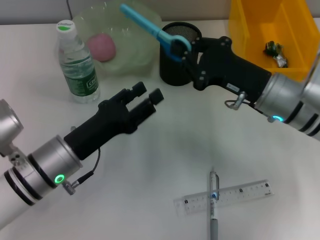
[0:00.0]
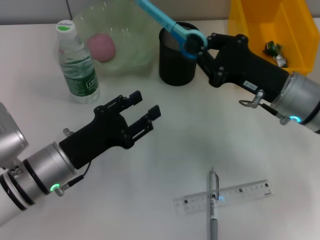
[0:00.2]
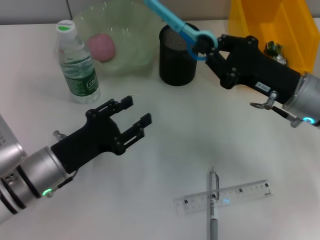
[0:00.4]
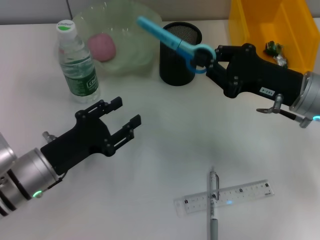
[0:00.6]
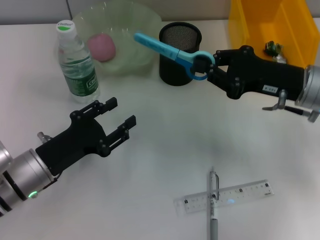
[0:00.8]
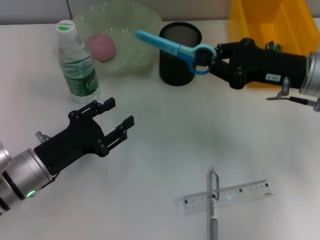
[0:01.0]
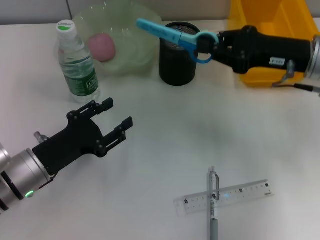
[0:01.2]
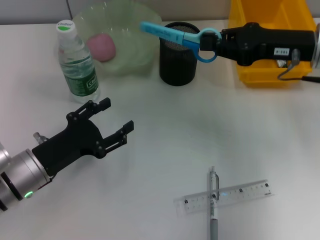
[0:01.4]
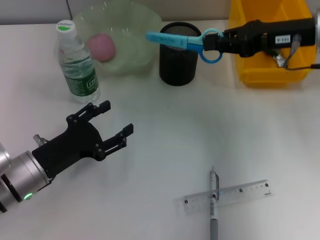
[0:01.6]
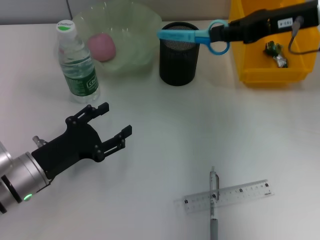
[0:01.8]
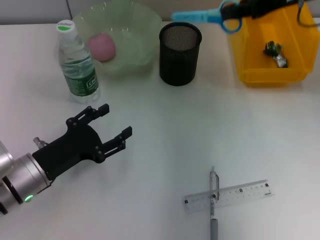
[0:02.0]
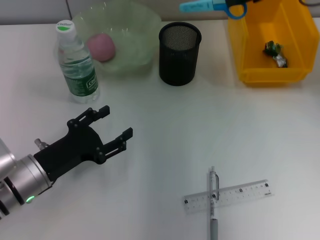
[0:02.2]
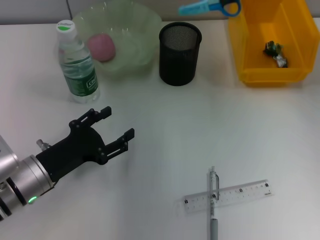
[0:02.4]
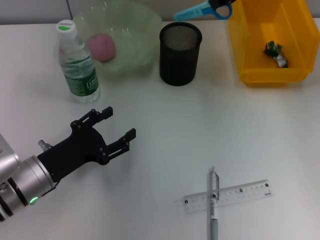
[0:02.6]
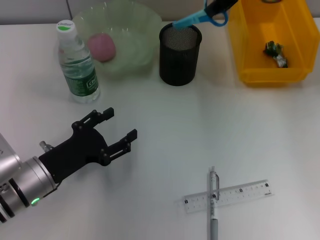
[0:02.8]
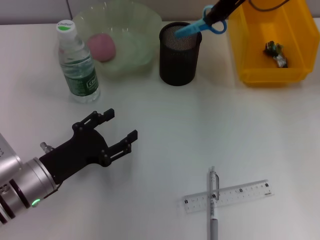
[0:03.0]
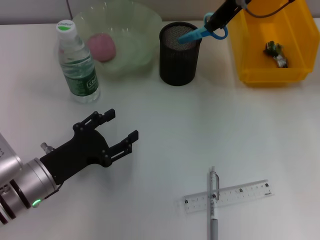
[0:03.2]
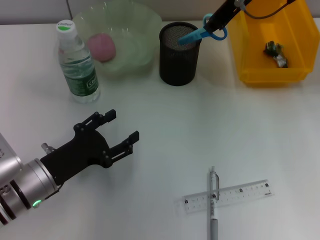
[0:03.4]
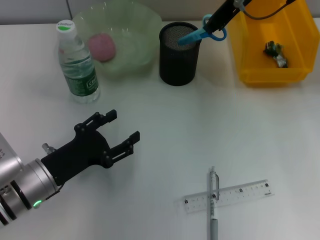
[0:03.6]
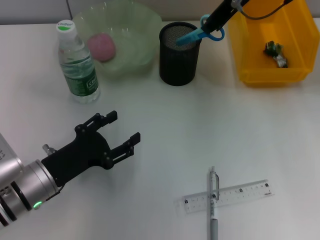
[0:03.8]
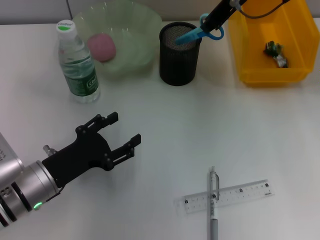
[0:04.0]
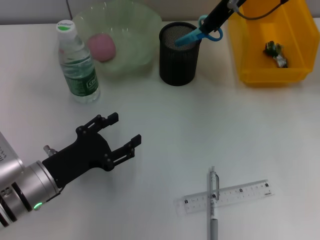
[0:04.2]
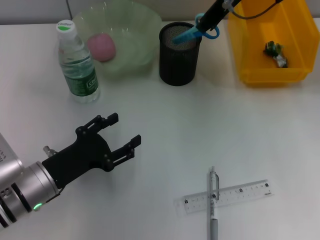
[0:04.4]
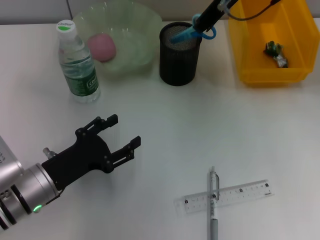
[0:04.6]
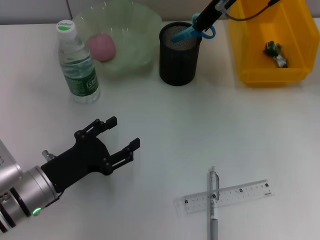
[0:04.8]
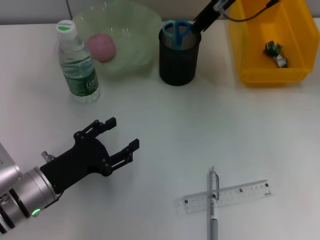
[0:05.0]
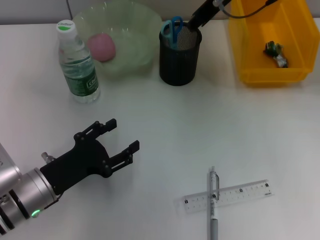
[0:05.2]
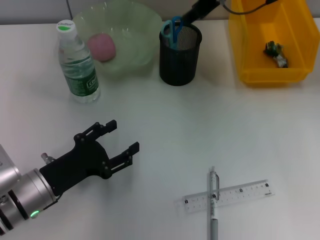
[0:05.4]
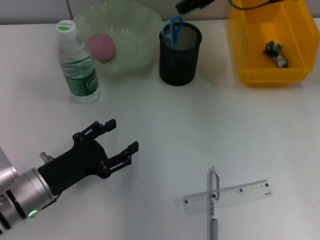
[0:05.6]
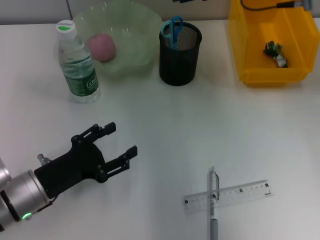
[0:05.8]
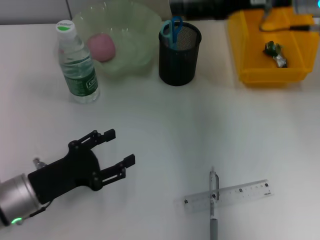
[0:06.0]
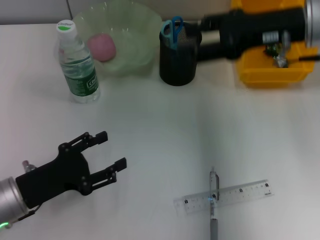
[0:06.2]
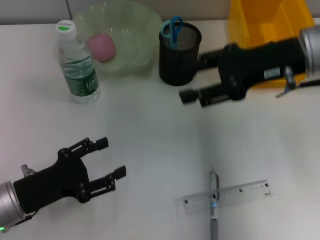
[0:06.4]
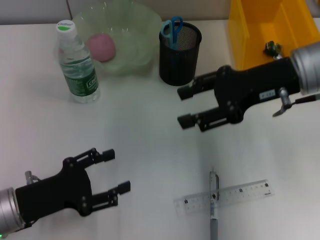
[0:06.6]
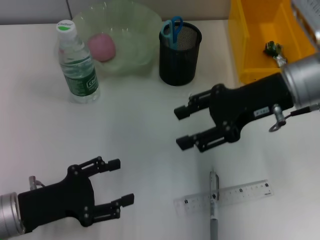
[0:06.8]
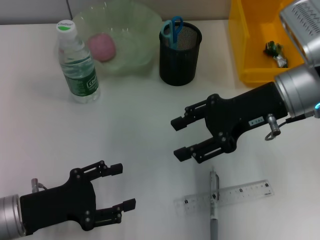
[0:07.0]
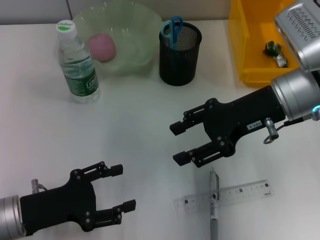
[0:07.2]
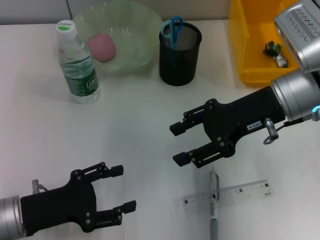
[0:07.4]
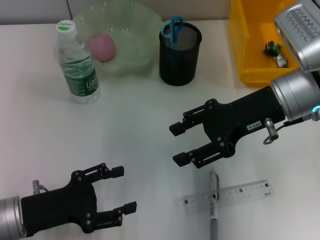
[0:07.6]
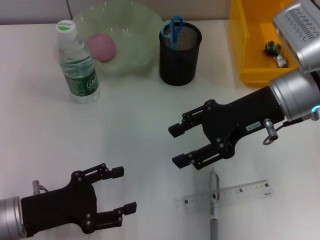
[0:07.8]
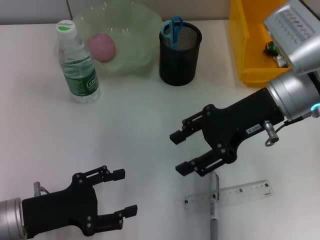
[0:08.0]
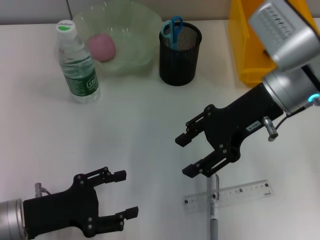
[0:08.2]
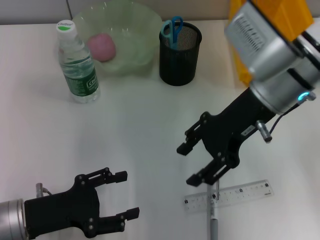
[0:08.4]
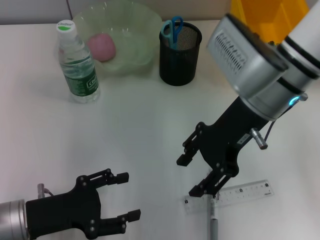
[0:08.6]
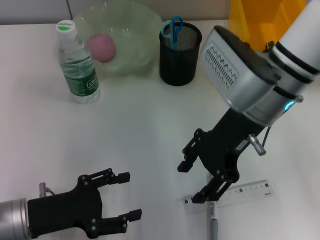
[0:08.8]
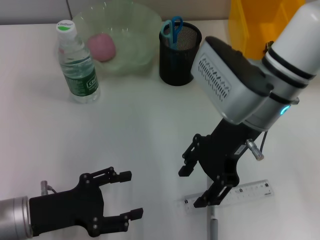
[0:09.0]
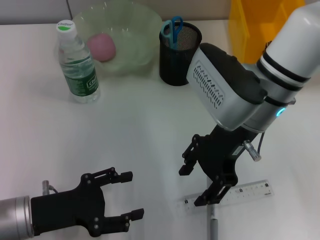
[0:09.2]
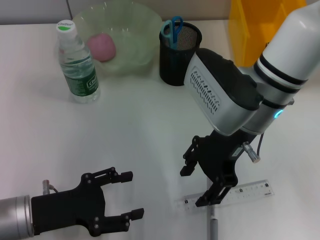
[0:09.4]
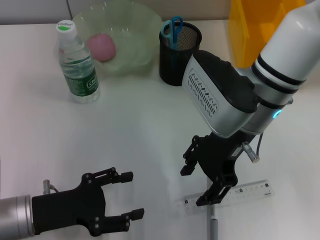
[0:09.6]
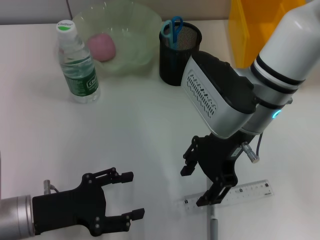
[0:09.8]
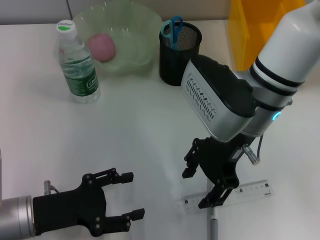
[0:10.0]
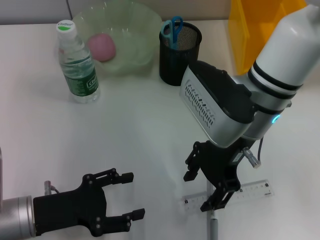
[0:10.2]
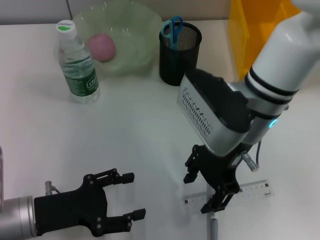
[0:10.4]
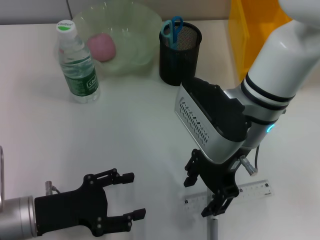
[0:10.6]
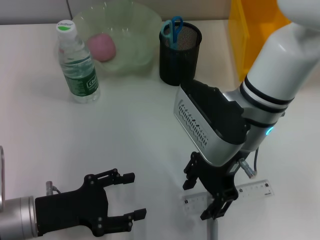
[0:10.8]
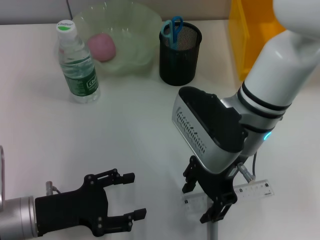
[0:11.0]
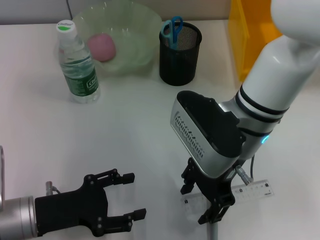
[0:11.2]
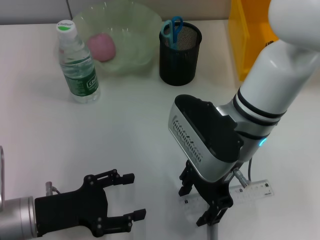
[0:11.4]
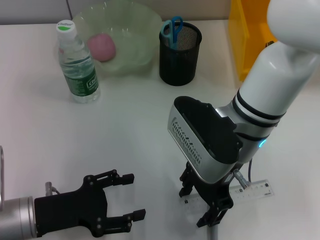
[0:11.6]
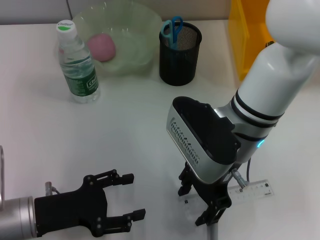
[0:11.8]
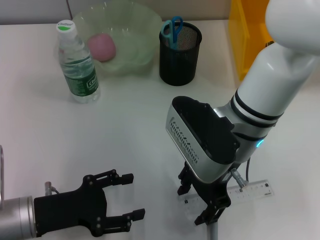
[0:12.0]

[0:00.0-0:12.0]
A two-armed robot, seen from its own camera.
Step, 0:00.0 to 0:05.0: Place the blue scissors into the pen holder with the right hand.
0:00.0 to 0:01.6: The right gripper goes roughly 15 cm upward, forward and to the right. Meanwhile the left gripper goes roughly 5 cm to the left.
0:01.6 to 0:03.0: The right gripper shifts approximately 15 cm to the left, upward and forward.
0:03.0 to 0:04.4: The grippers move only a little.
0:04.4 to 0:06.0: The right gripper is displaced to the right and backward by approximately 10 cm, and opens its fingers.
0:06.0 to 0:07.6: The right gripper heads downward and backward, covering some 10 cm.
0:07.6 to 0:09.0: The right gripper heads to the left, covering about 5 cm.
0:09.0 to 0:12.0: The grippers make only small movements.

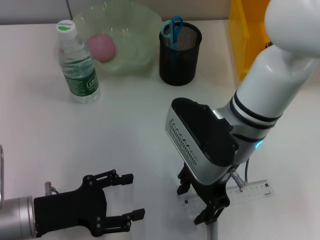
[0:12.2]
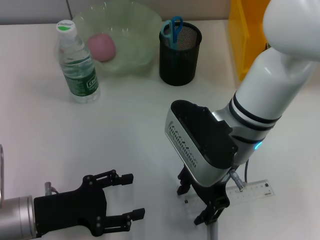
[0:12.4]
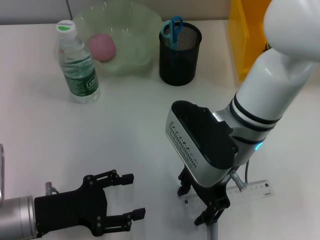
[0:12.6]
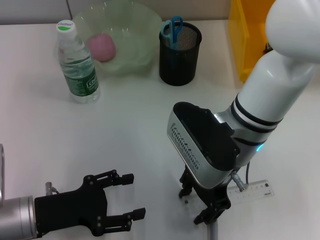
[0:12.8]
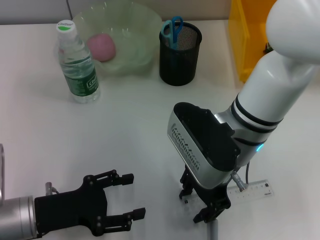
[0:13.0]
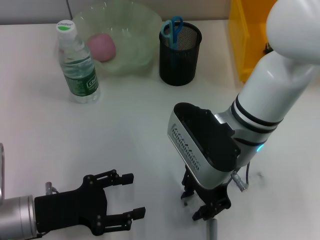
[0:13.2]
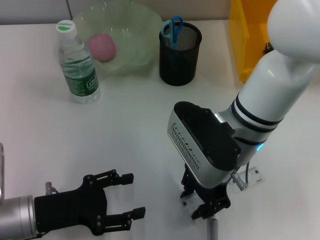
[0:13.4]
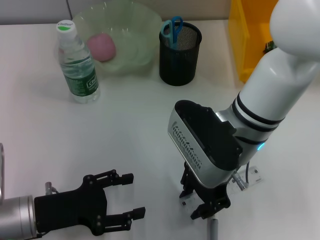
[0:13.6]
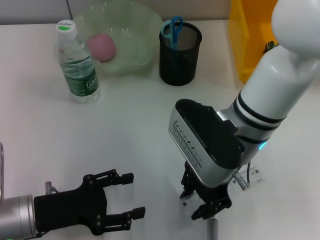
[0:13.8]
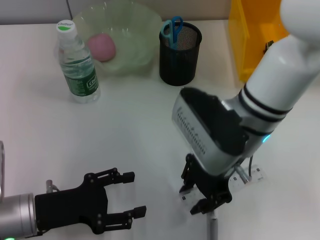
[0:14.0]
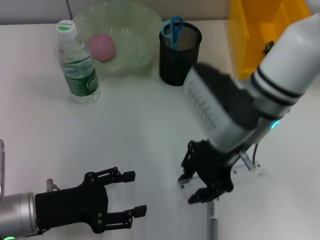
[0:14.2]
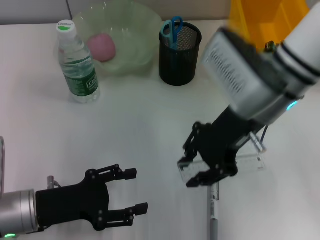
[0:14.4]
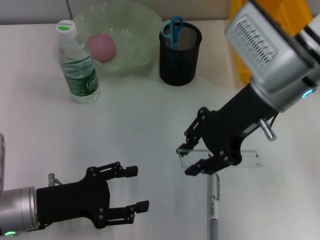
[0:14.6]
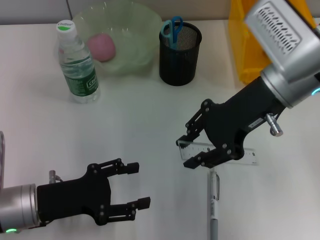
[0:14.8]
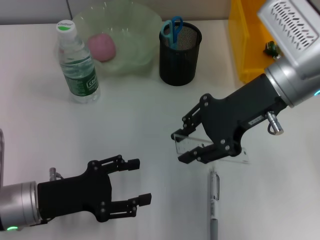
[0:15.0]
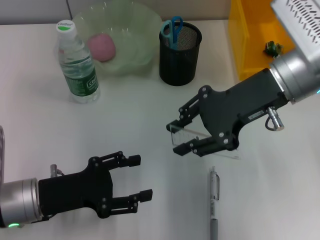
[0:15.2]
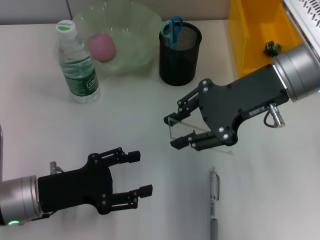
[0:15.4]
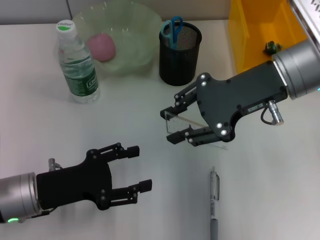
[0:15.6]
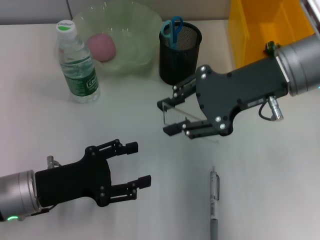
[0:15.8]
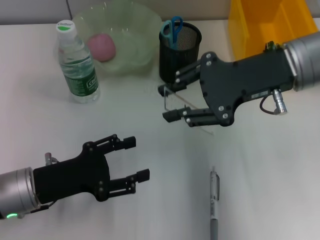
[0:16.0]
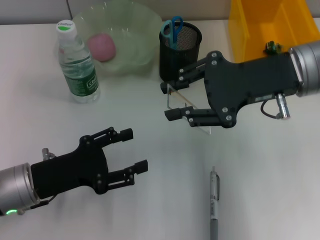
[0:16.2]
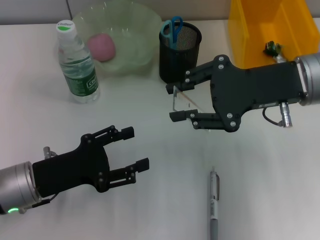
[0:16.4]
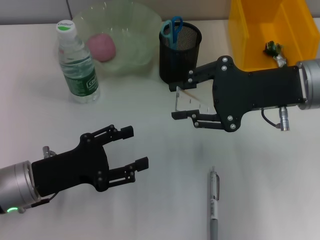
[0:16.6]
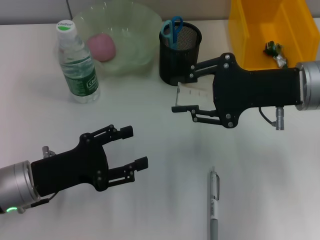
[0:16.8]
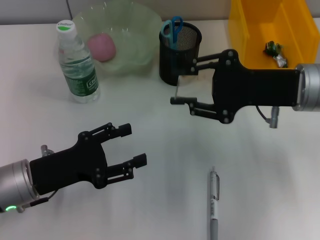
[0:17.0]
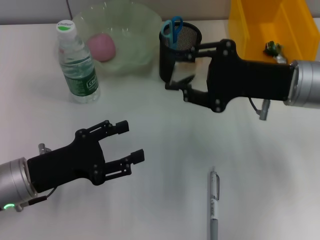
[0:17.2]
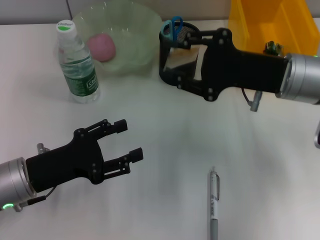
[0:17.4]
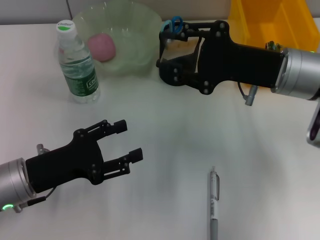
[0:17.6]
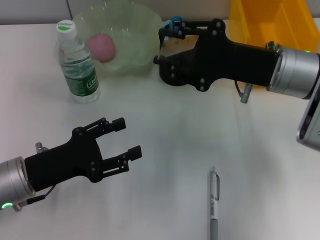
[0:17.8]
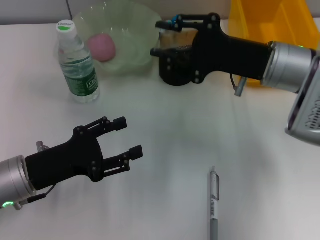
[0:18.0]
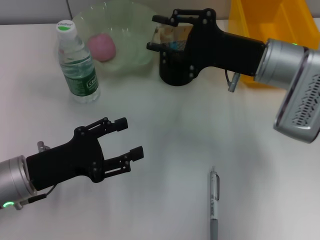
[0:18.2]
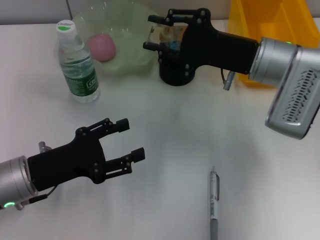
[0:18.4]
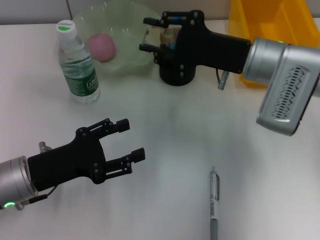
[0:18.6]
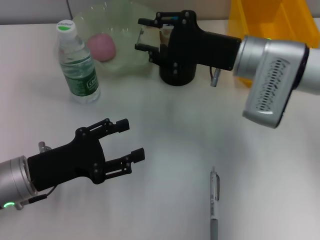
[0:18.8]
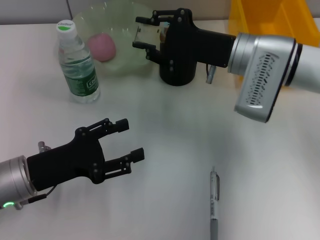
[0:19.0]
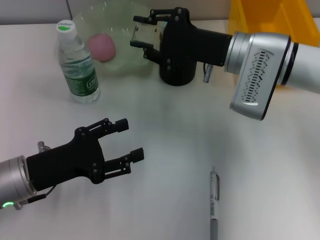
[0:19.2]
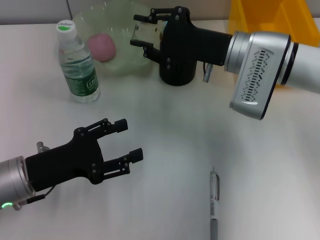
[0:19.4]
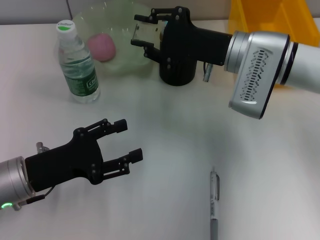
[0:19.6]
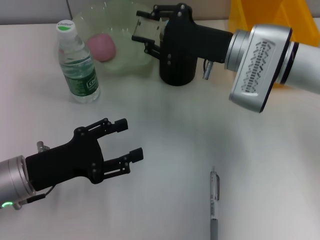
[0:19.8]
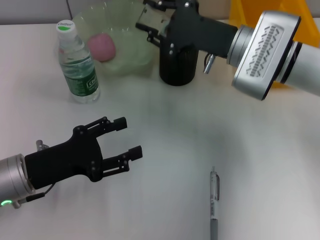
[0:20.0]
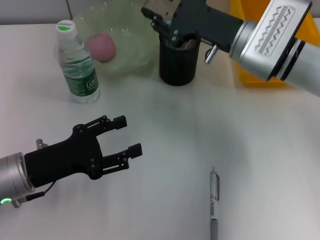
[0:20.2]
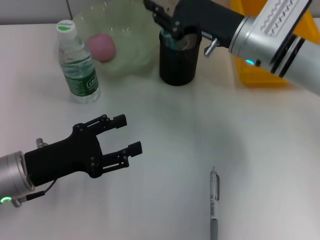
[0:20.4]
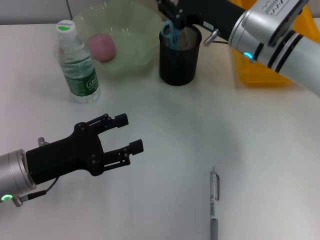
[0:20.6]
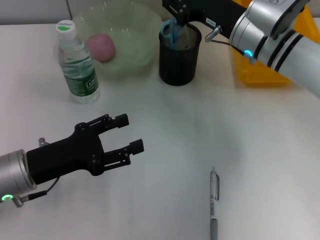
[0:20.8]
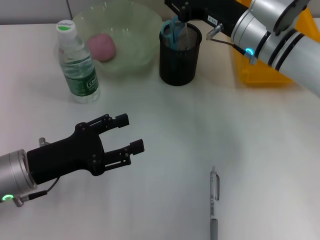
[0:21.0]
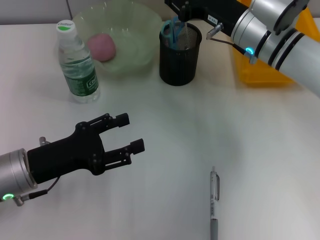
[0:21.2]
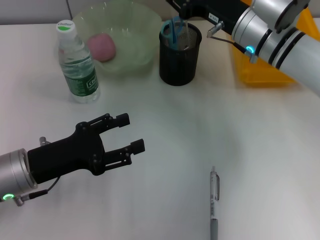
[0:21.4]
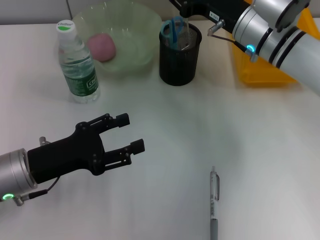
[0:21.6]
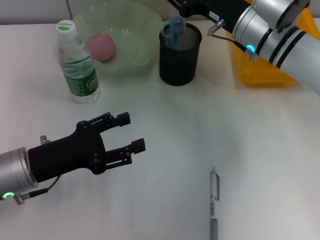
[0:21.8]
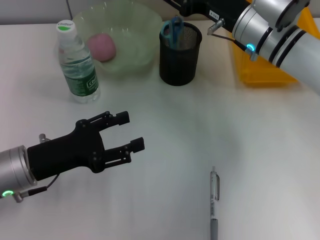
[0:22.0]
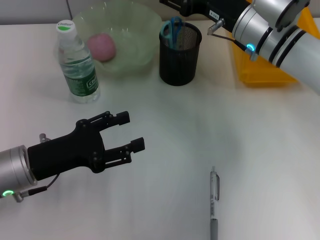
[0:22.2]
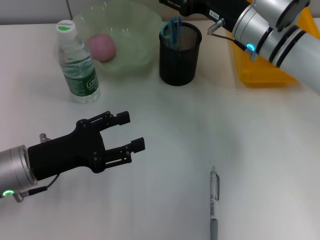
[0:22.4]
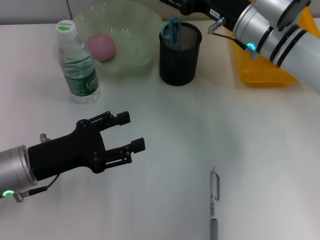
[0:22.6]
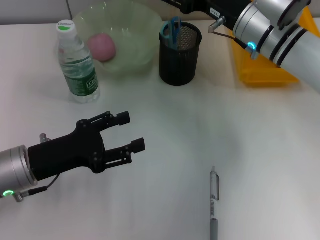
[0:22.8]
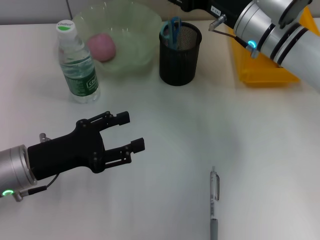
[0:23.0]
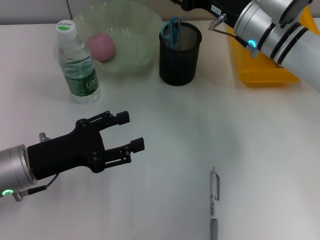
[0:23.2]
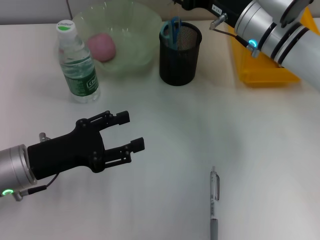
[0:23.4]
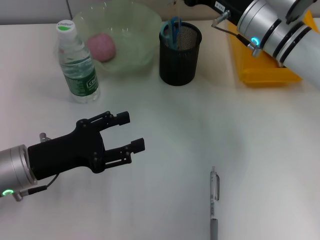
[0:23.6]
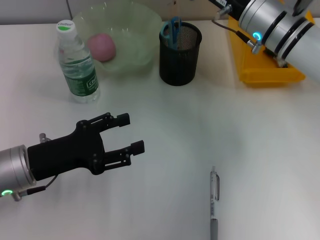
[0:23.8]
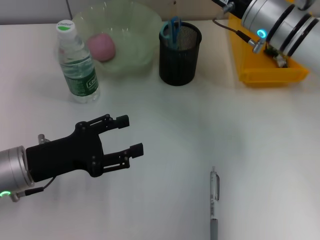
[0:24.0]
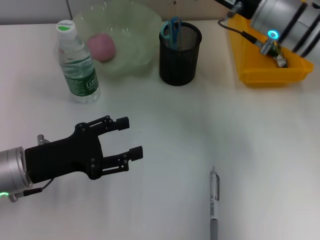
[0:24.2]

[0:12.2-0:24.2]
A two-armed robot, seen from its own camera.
Step, 0:13.2 to 0:22.2: Place the ruler into the pen holder with the right hand.
0:12.2 to 0:13.8: Neither gripper changes place.
0:13.8 to 0:15.2: The right gripper shifts approximately 10 cm to the right and upward.
0:15.2 to 0:16.6: The right gripper moves roughly 5 cm.
0:16.6 to 0:18.2: The right gripper ends up roughly 5 cm from where it was.
0:18.2 to 0:19.8: There are only small adjustments of the grippers.
0:21.2 to 0:22.6: The right gripper opens its fingers.
0:22.6 to 0:24.2: The grippers make only small movements.
